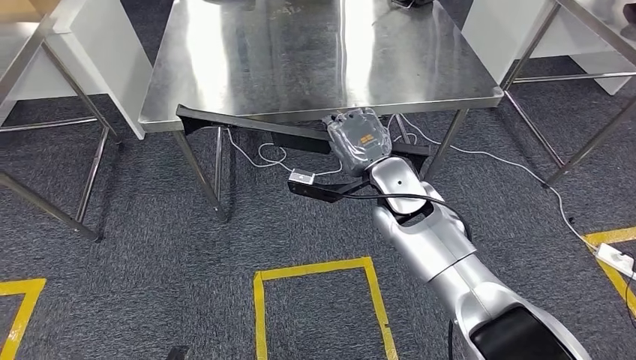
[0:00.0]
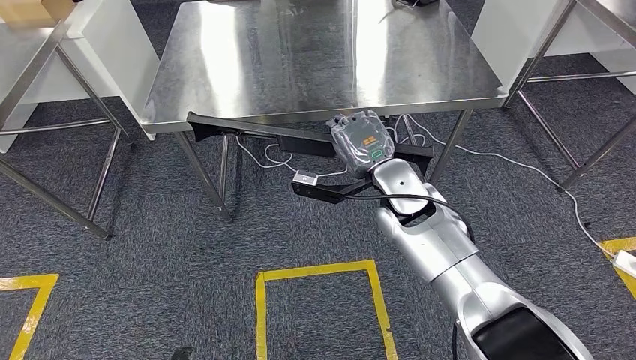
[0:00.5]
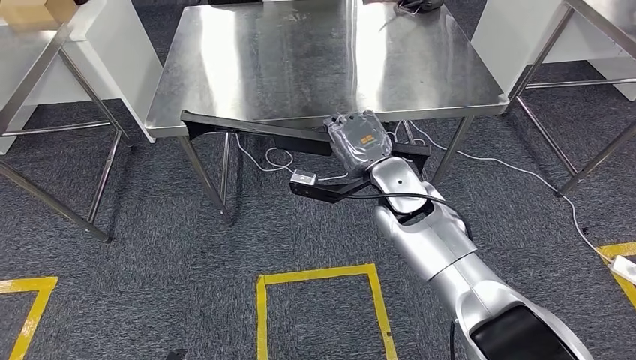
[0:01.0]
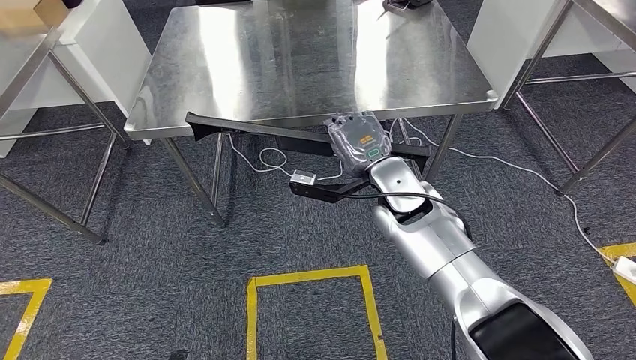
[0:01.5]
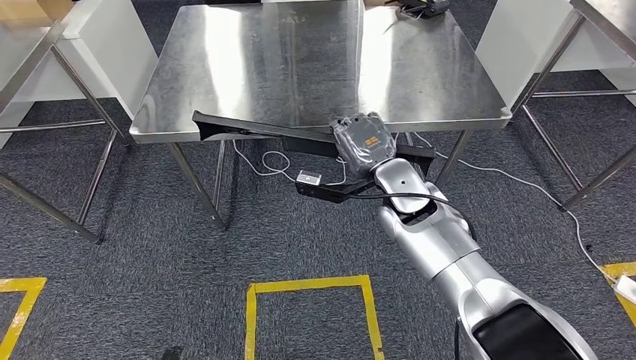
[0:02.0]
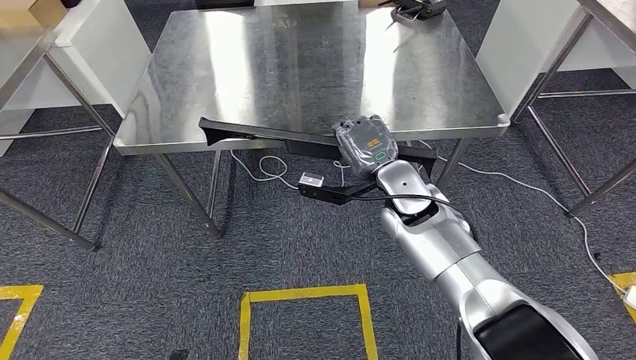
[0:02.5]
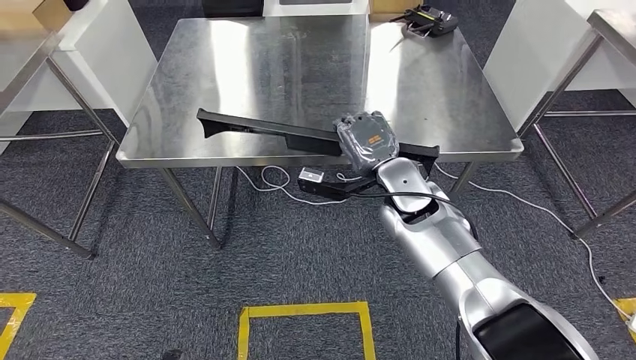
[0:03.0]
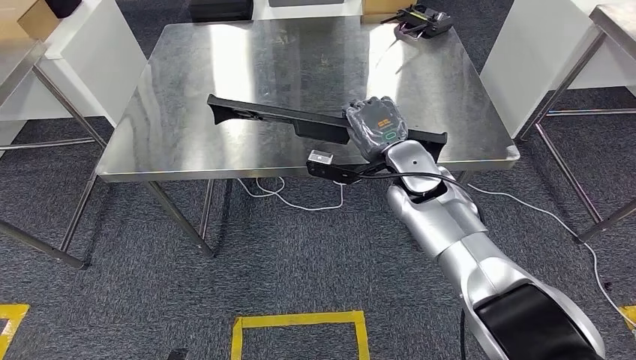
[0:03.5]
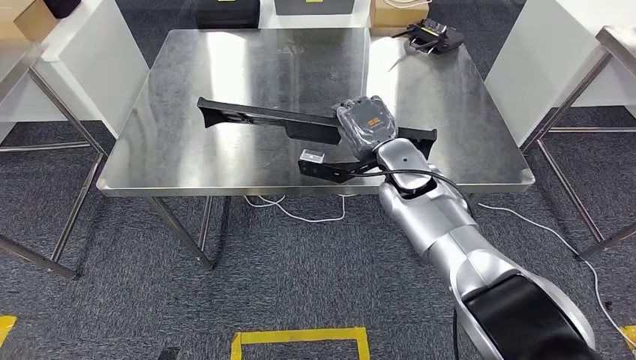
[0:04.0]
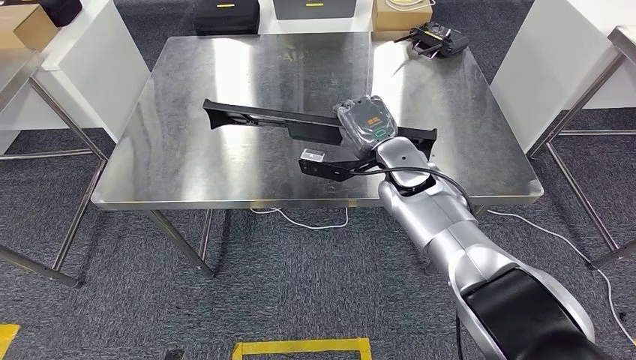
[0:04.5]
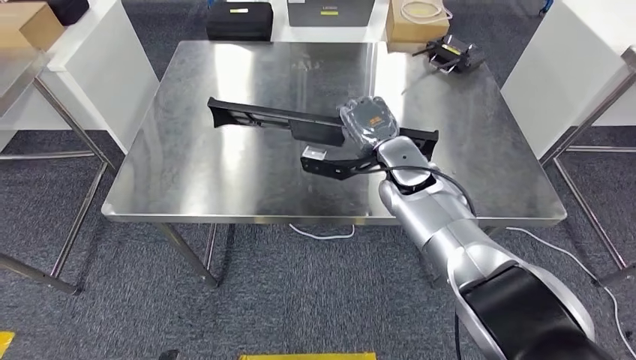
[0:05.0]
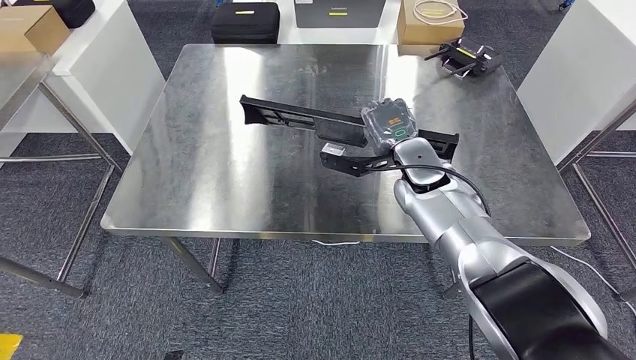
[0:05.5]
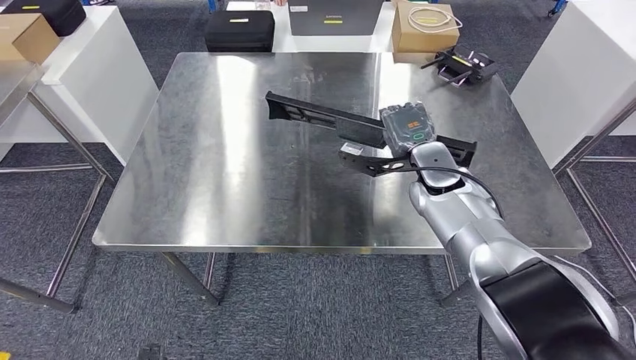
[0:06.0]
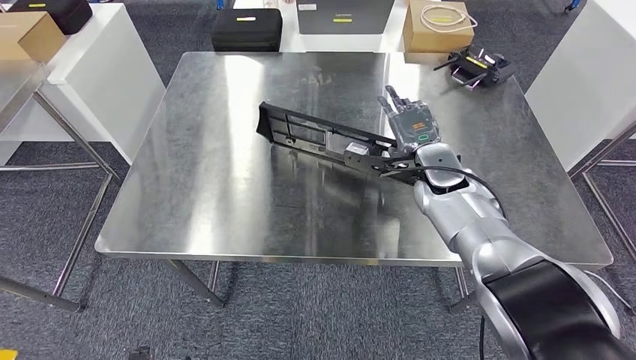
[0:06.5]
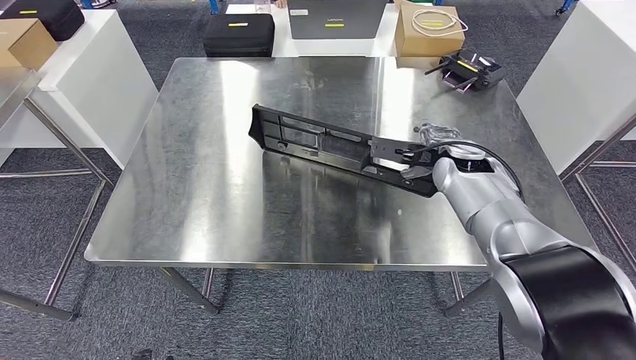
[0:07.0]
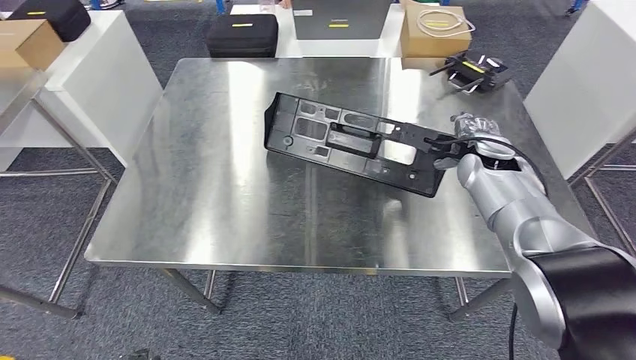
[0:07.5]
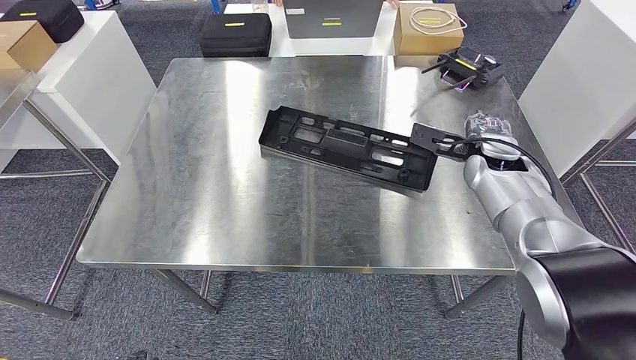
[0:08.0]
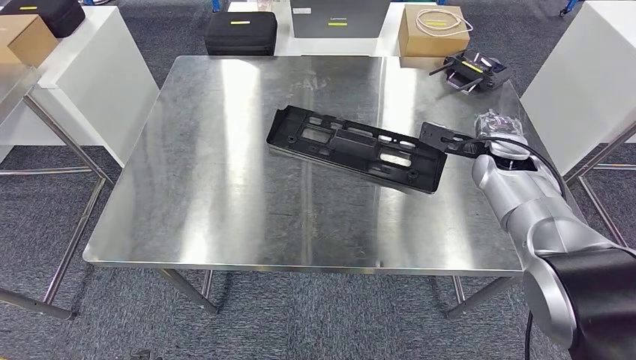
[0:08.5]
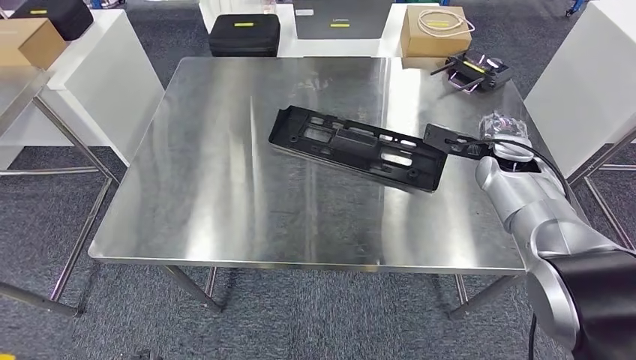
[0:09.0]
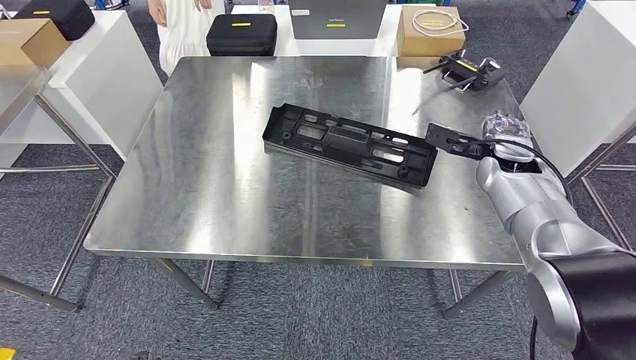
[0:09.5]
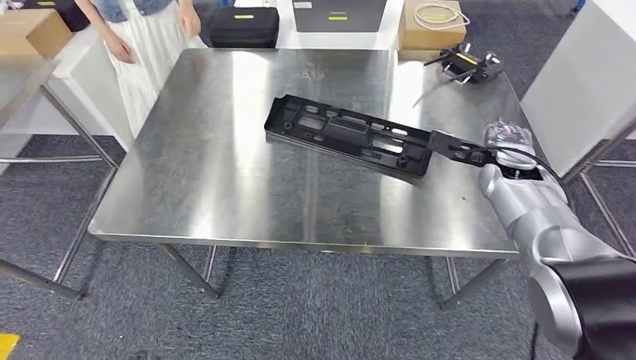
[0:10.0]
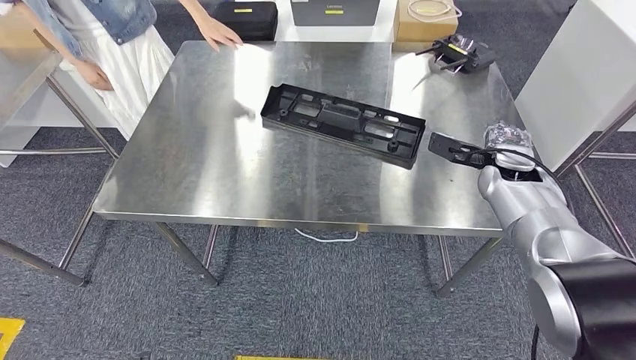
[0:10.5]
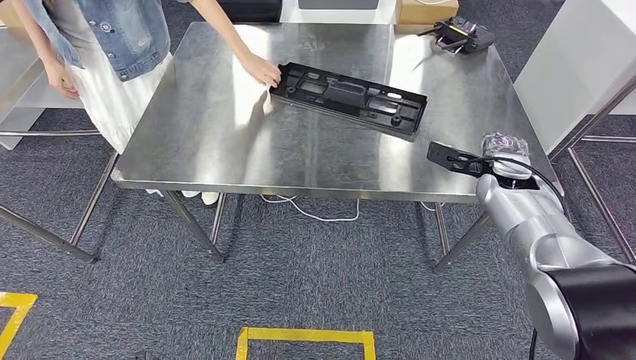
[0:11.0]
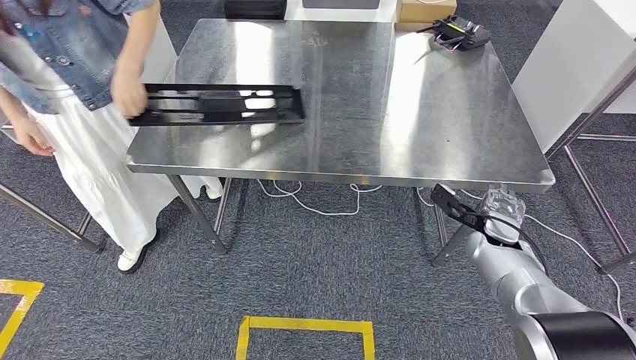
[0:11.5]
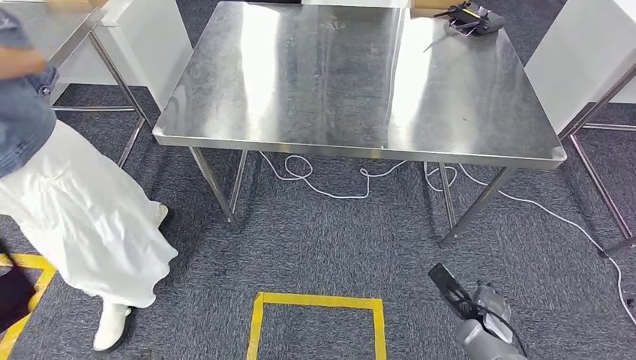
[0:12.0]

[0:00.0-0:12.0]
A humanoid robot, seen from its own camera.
Step, 0:00.0 to 0:07.0: Insert the large material into the corresponding slot on the workbench.

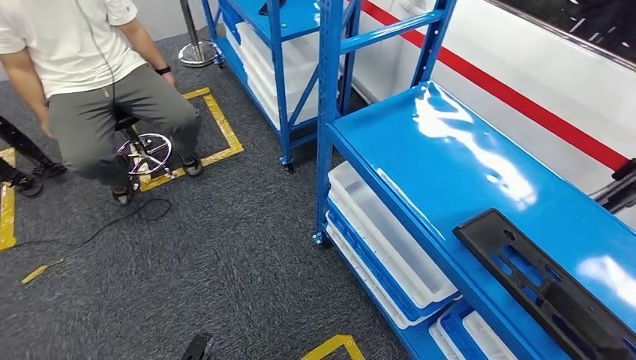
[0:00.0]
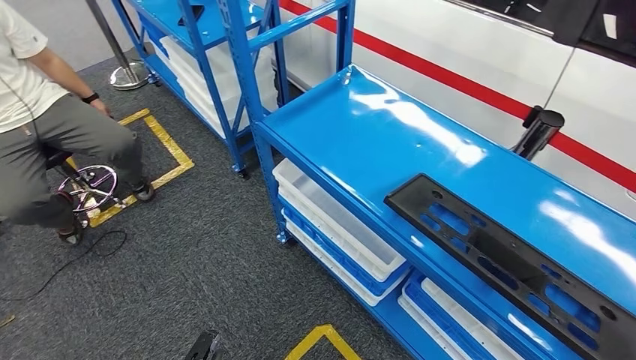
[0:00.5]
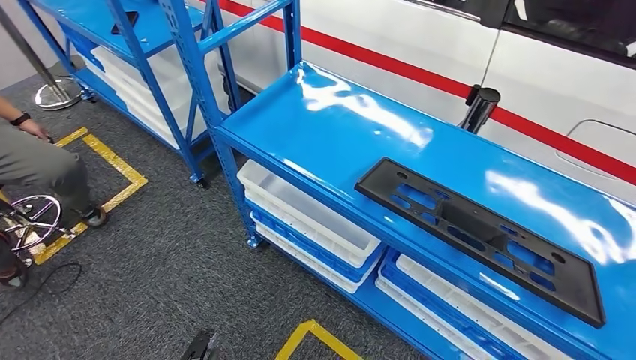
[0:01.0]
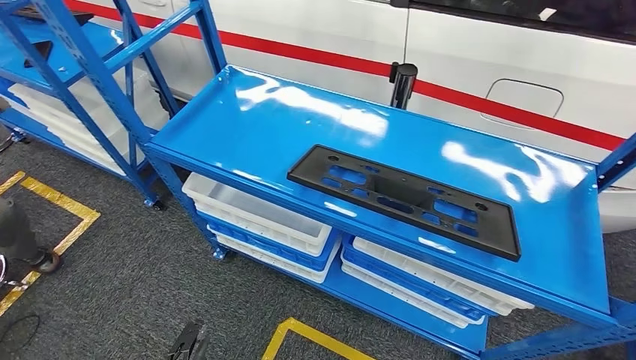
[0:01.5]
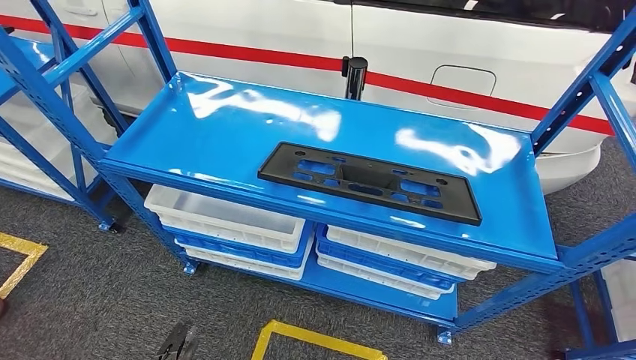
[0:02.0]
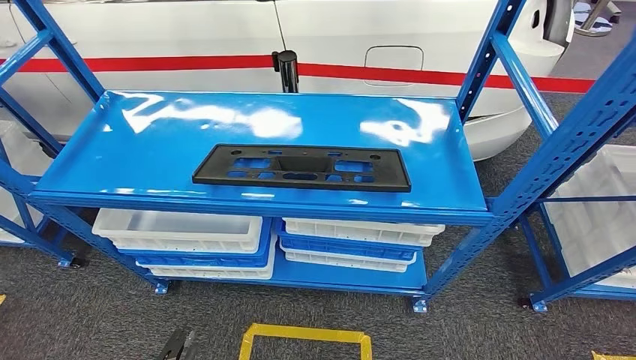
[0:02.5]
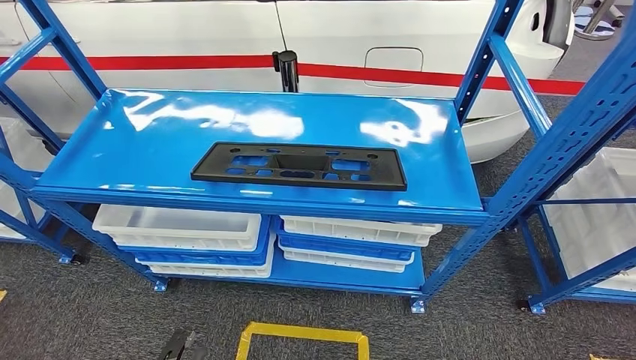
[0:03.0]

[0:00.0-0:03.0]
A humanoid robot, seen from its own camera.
Step, 0:00.0 to 0:03.0: Return to the initial position at the shelf.

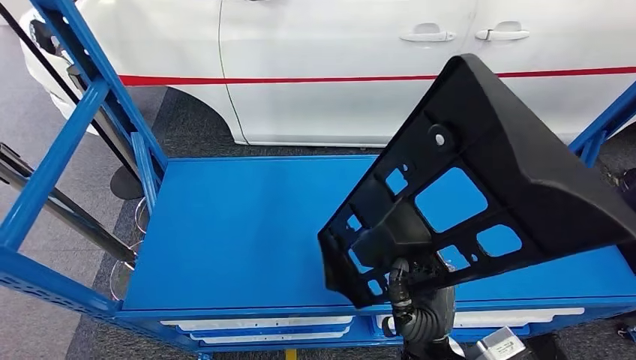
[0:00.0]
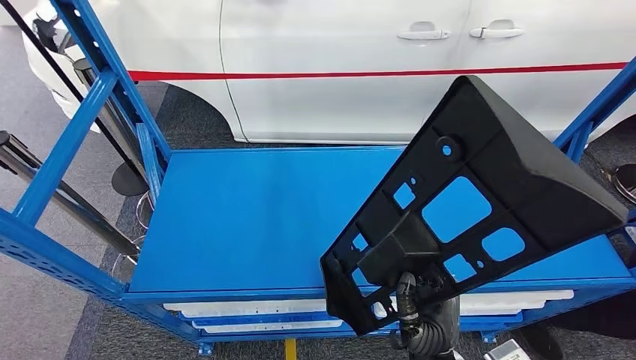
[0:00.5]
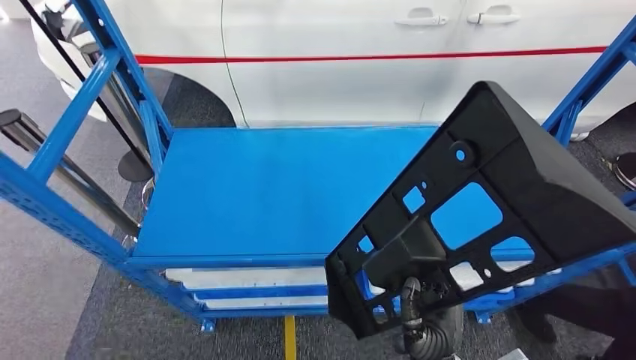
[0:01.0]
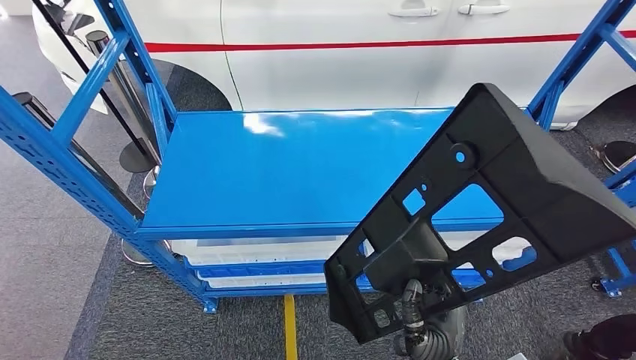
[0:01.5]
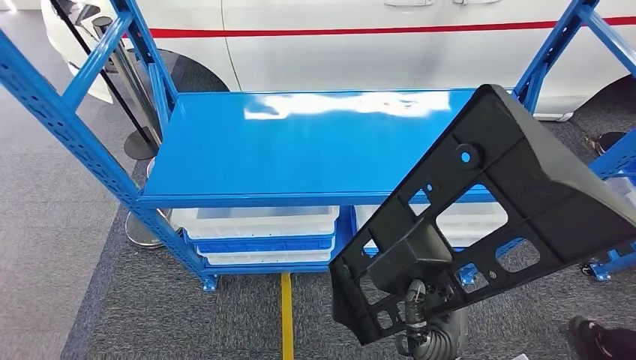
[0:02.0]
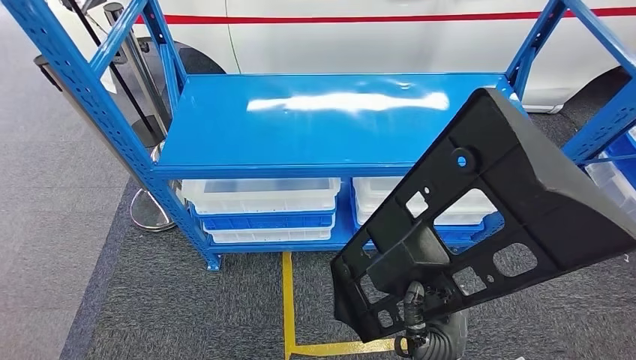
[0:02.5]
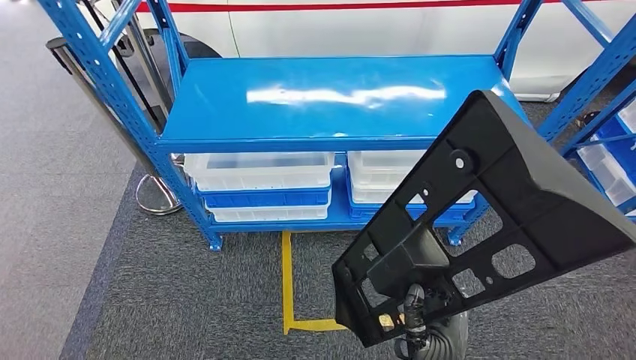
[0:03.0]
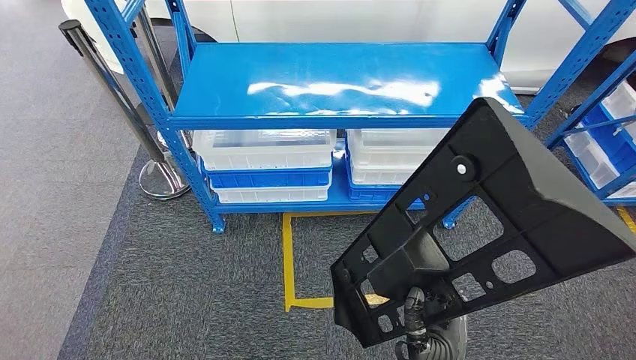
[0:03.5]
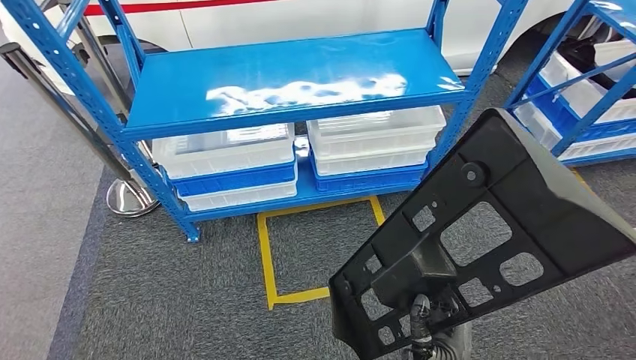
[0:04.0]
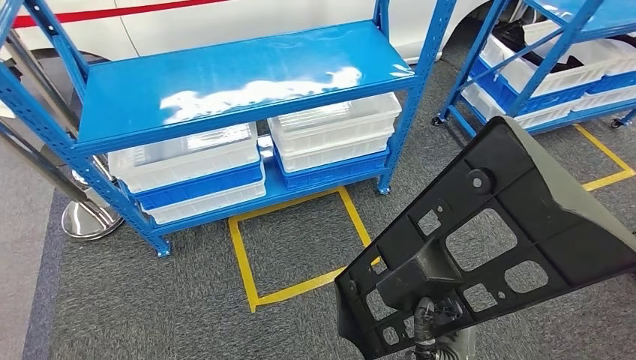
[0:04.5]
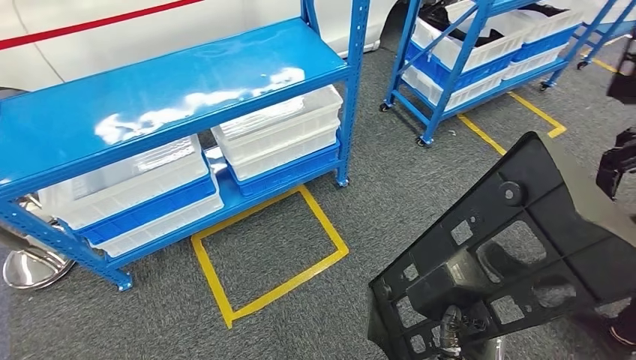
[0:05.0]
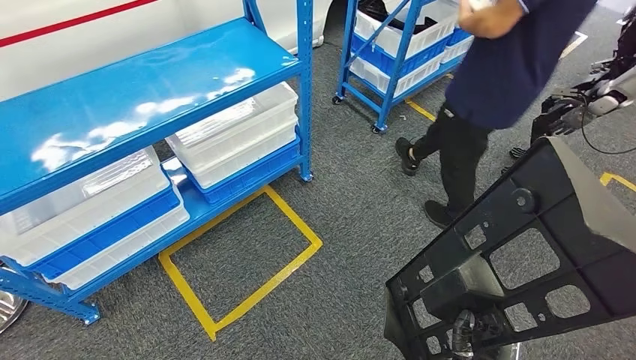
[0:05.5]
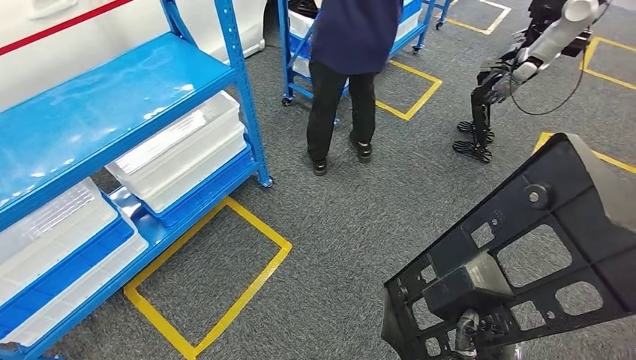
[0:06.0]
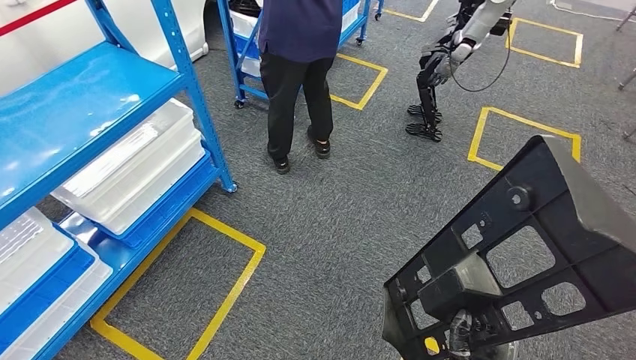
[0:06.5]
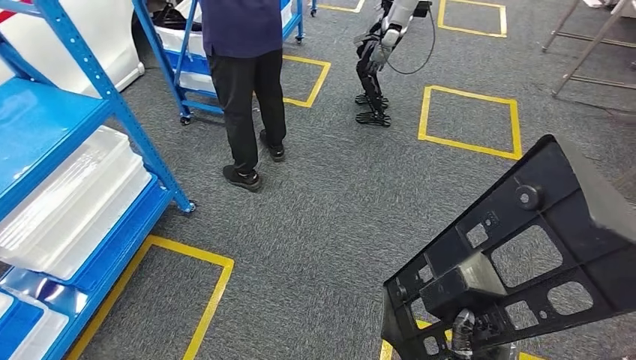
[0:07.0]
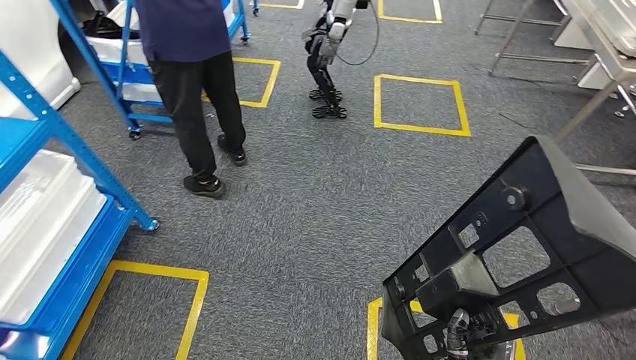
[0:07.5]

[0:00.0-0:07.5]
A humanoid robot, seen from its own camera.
Step, 0:00.0 to 0:02.0: Pick up the large material from the shelf.
